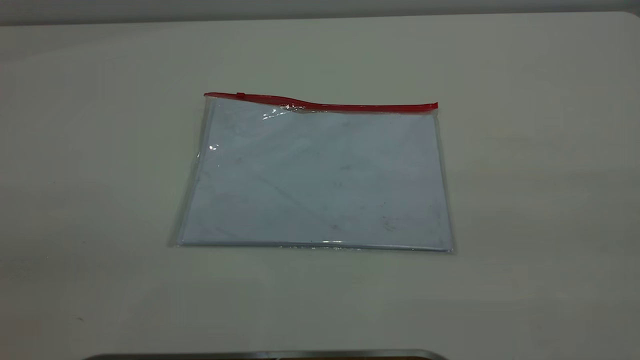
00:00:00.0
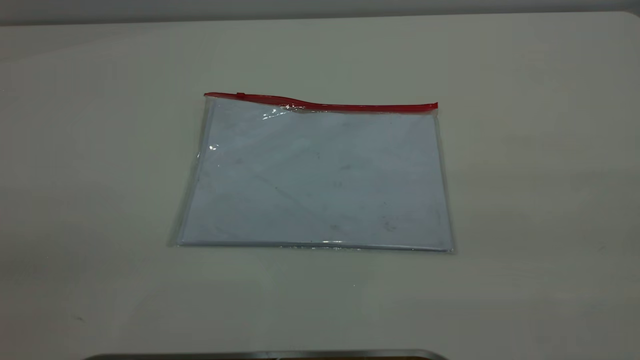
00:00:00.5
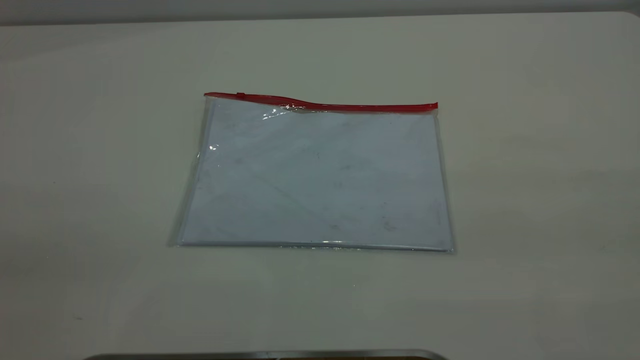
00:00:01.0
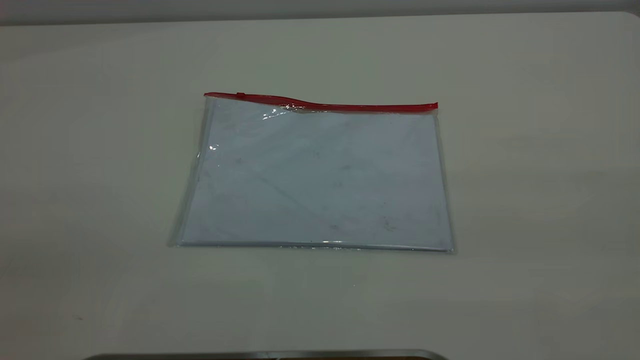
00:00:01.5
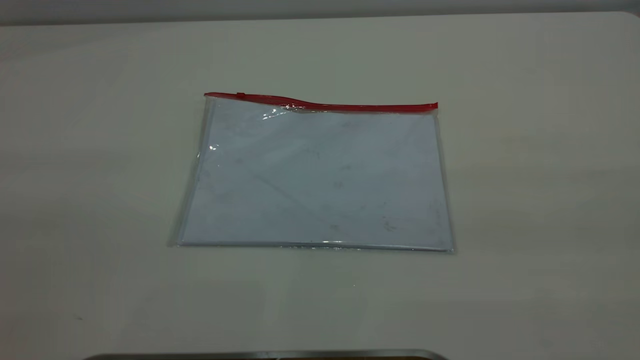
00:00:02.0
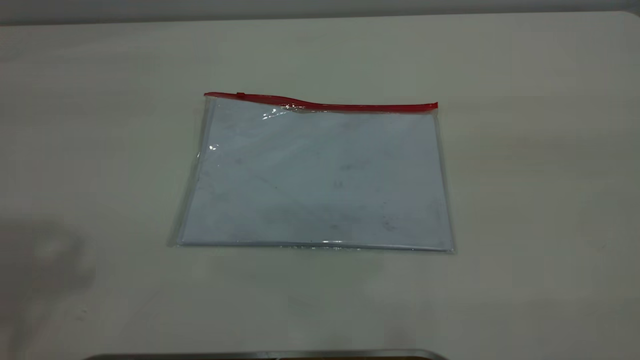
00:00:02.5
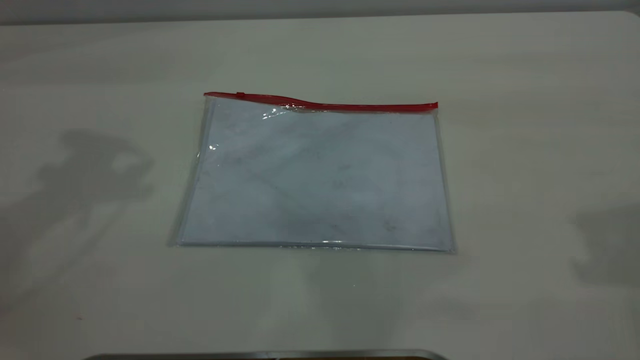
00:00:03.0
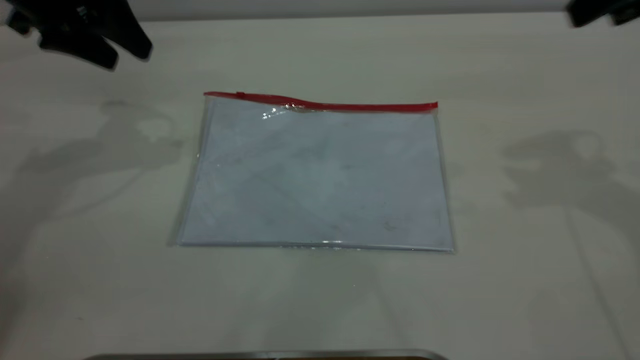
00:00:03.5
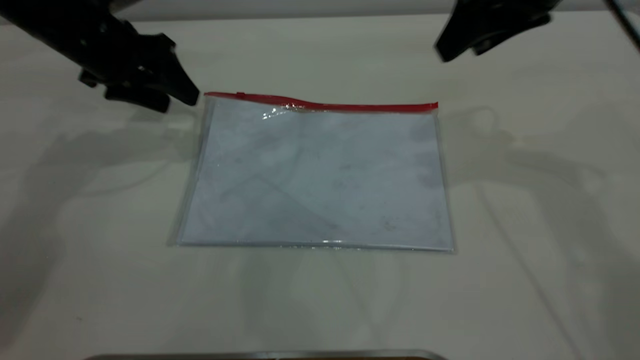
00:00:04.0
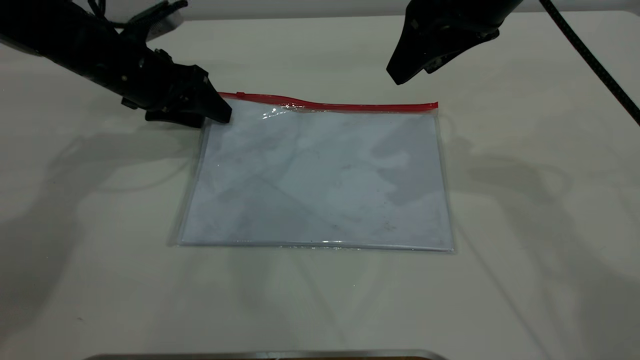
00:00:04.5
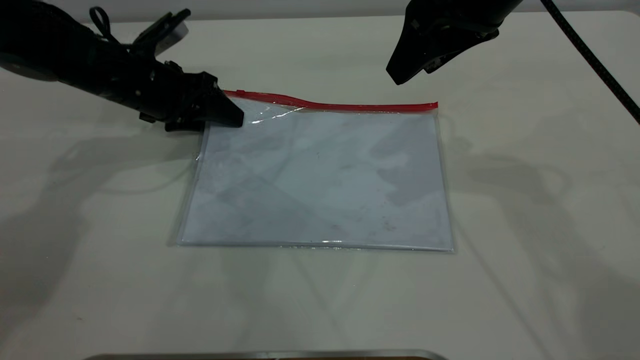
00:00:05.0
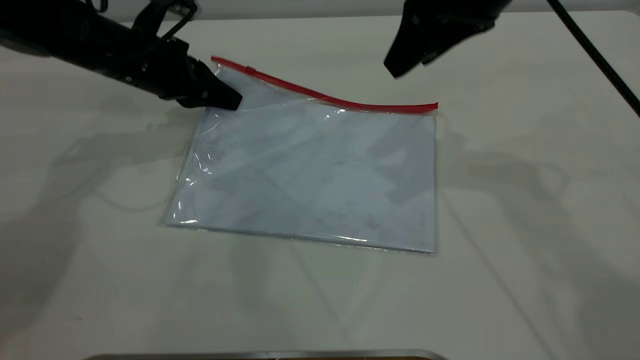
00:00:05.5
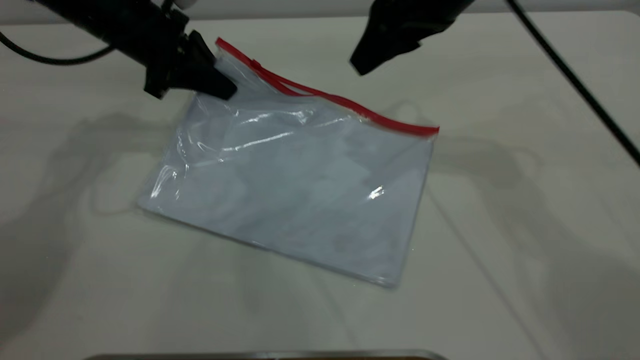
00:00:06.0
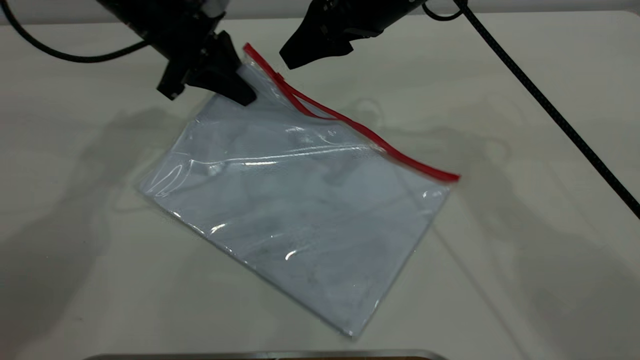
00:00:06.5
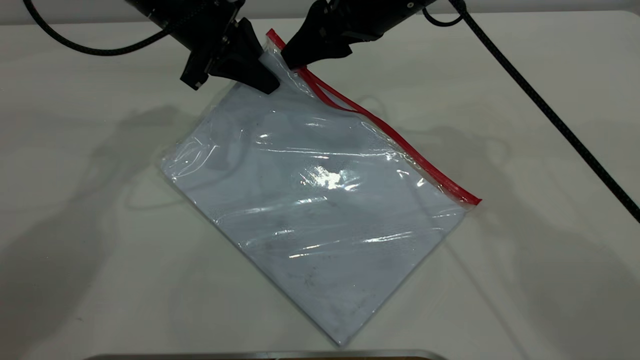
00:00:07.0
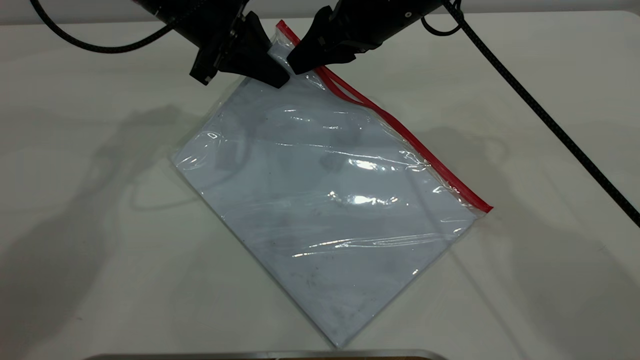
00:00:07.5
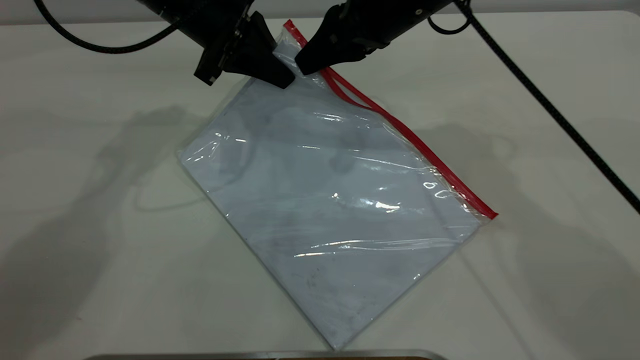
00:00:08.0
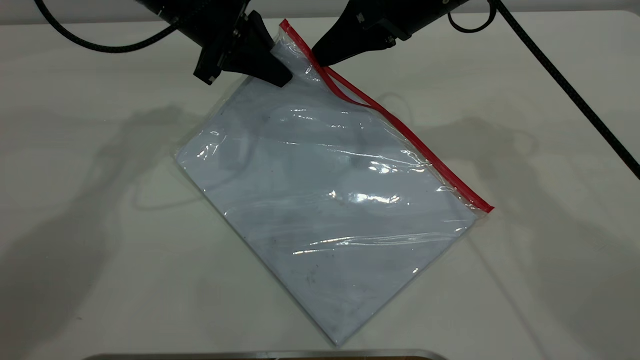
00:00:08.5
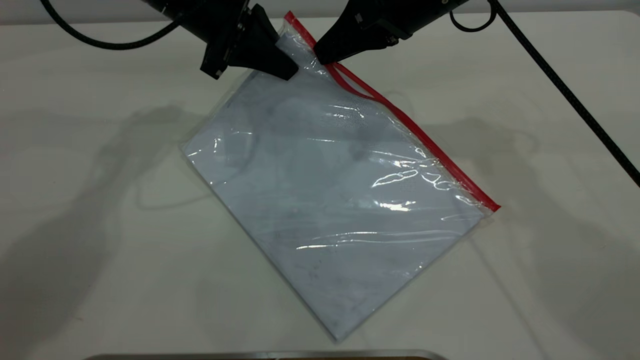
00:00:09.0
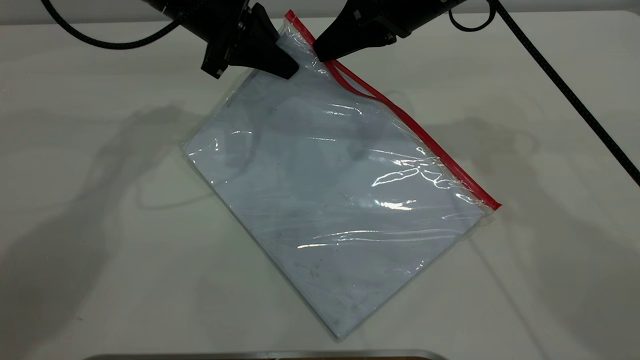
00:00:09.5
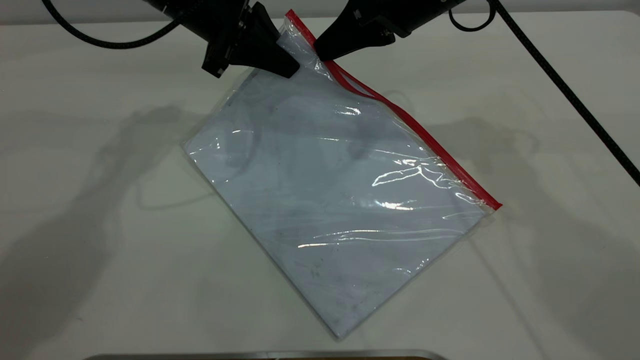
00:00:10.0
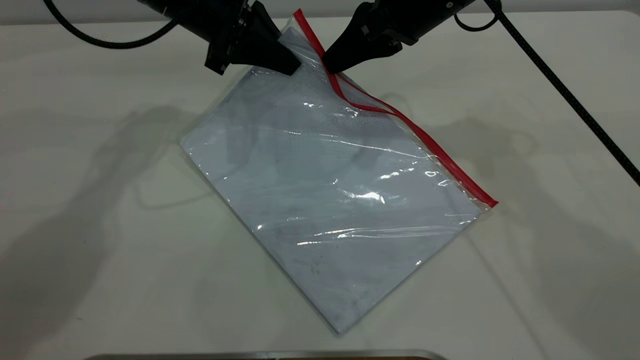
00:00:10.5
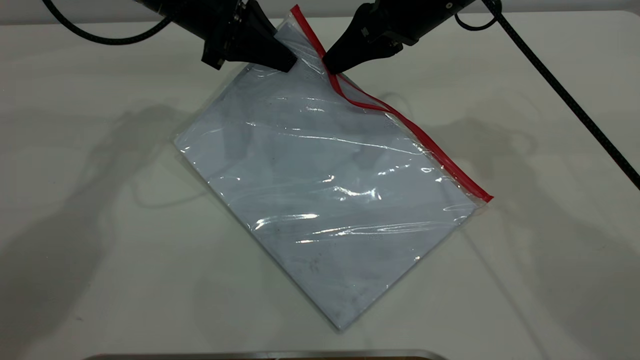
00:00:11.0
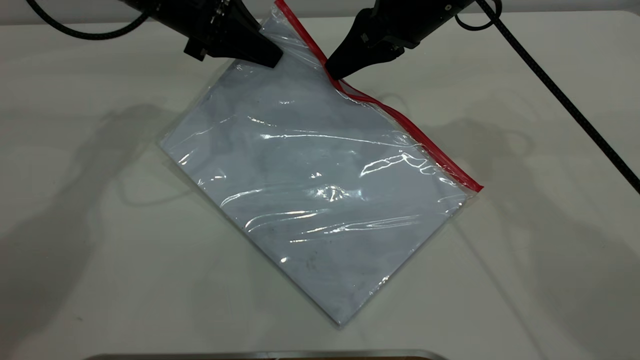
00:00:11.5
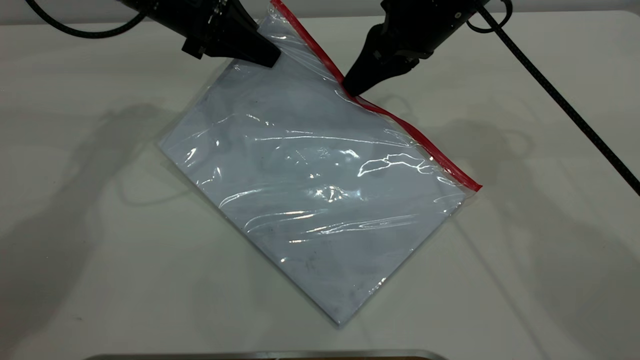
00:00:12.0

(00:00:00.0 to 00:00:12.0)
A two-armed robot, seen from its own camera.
Step, 00:00:00.0 - 00:00:05.0: Pick up the transparent plastic bag with the left gripper.
00:00:02.0 - 00:00:04.0: The left gripper goes about 50 cm forward and downward; the right gripper shifts roughly 40 cm forward.
00:00:04.0 - 00:00:06.0: The right gripper travels to the left by roughly 5 cm. Meanwhile the left gripper travels downward and back again, some 5 cm each way, and closes up.
00:00:06.0 - 00:00:08.0: The left gripper is displaced to the right by some 5 cm. Meanwhile the right gripper closes its fingers.
00:00:08.0 - 00:00:12.0: The grippers move only a little.

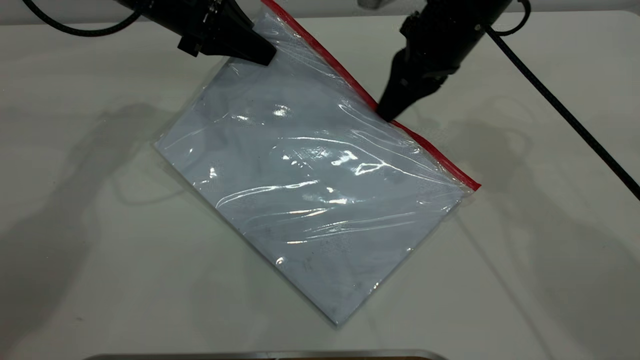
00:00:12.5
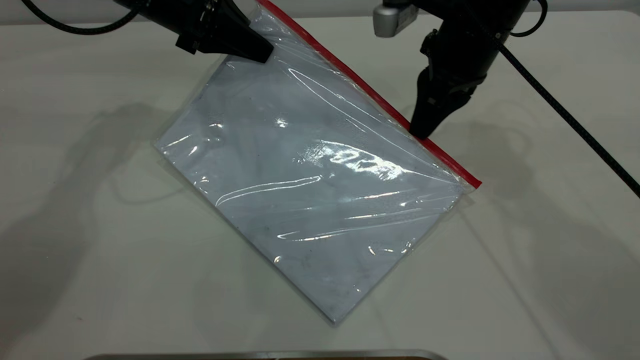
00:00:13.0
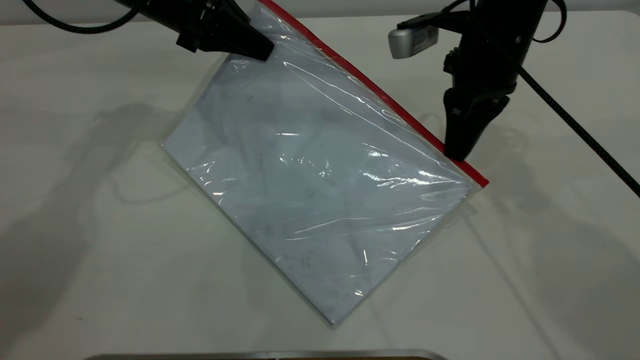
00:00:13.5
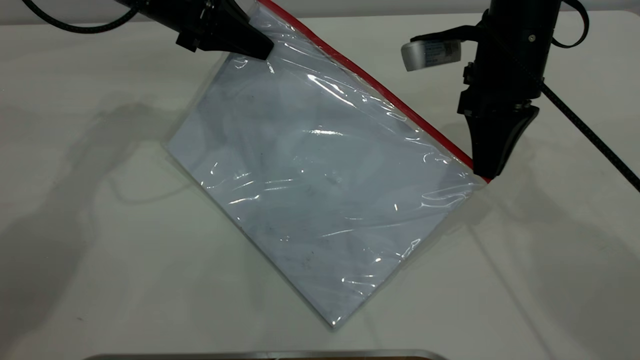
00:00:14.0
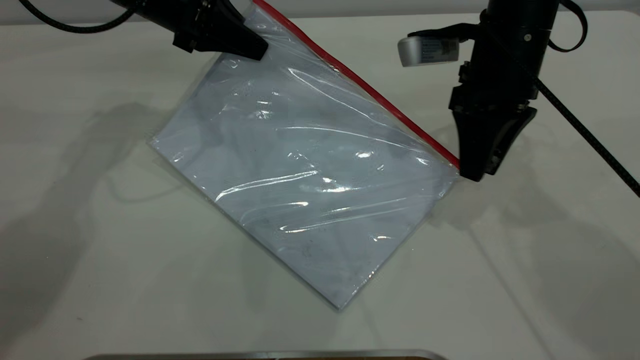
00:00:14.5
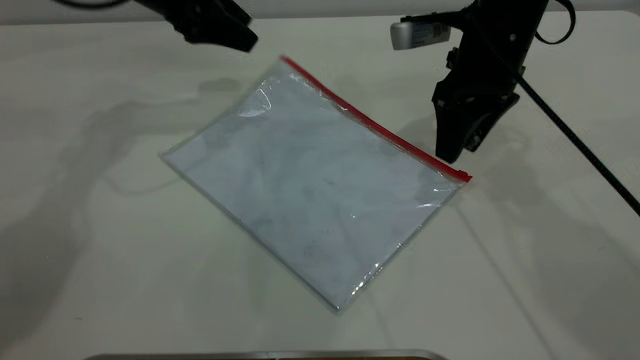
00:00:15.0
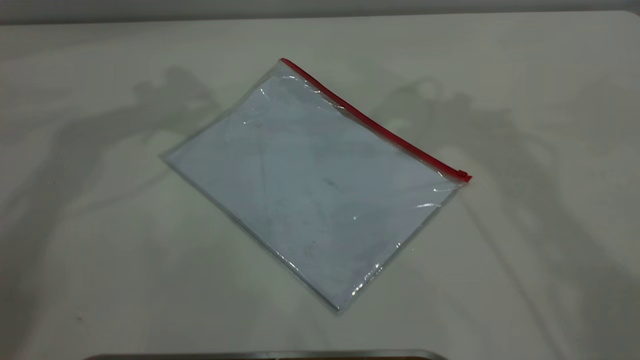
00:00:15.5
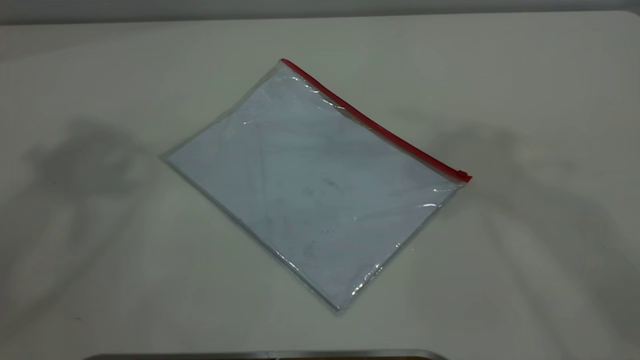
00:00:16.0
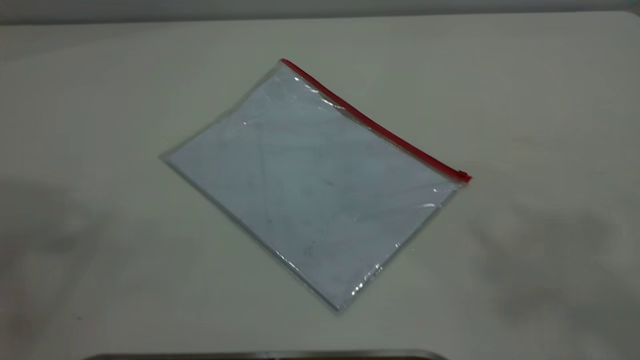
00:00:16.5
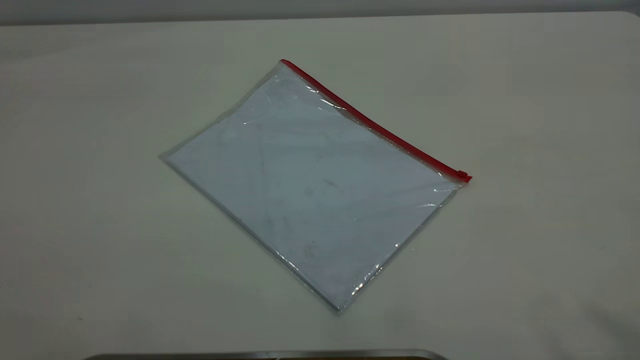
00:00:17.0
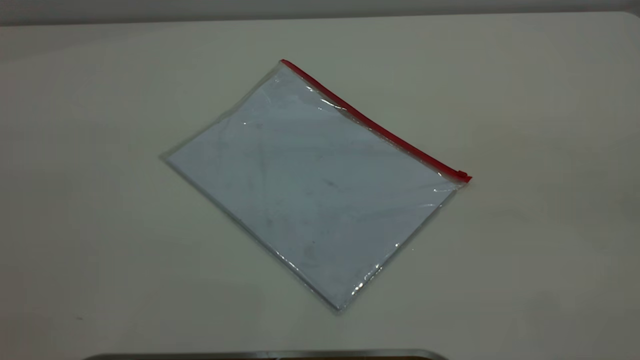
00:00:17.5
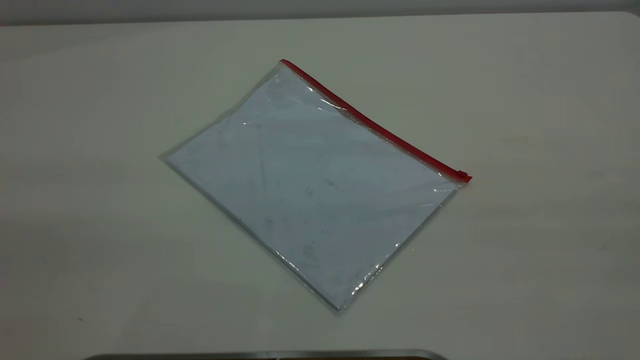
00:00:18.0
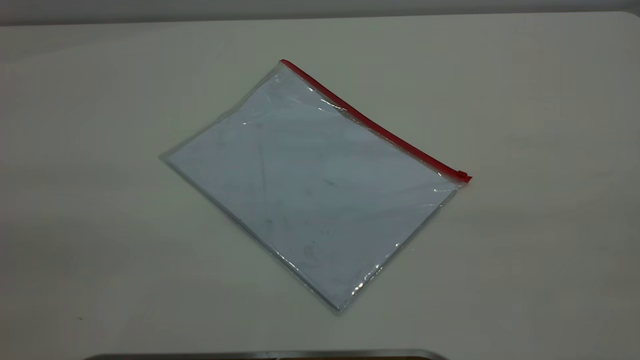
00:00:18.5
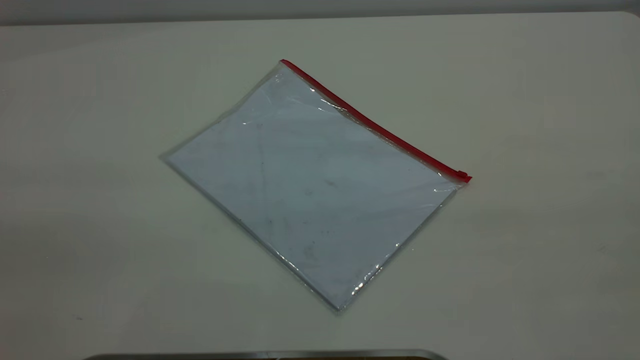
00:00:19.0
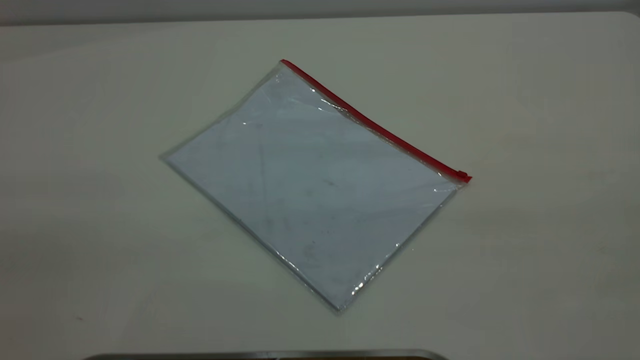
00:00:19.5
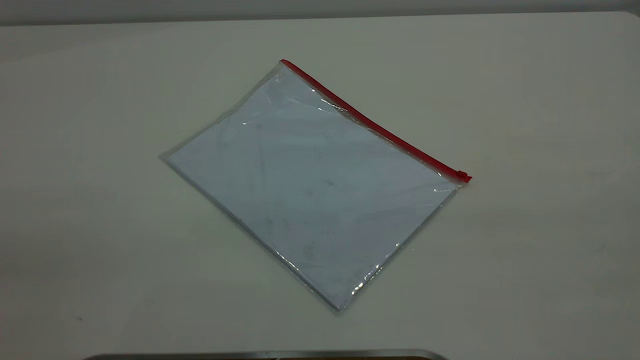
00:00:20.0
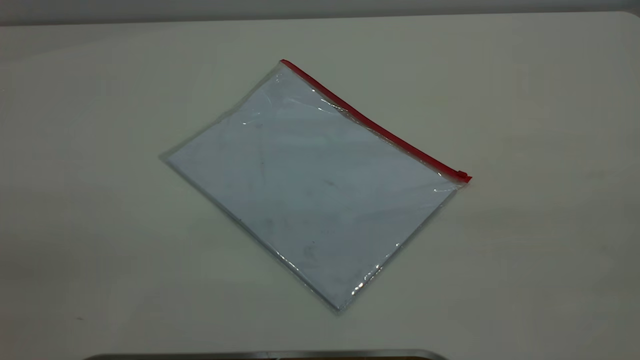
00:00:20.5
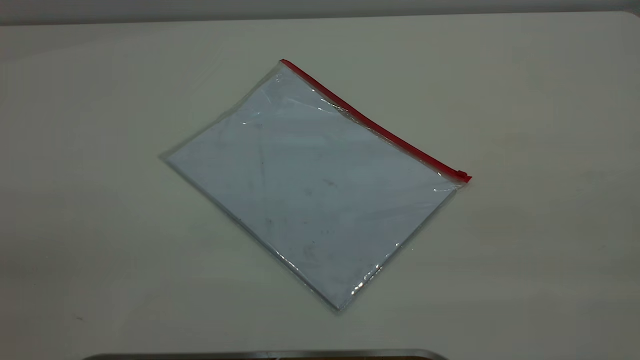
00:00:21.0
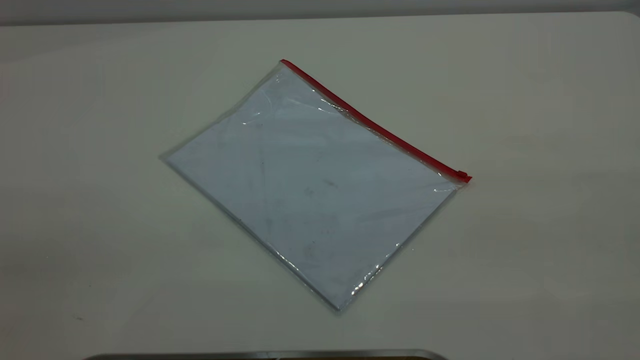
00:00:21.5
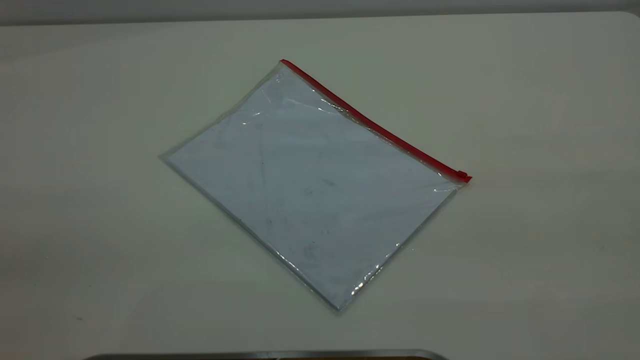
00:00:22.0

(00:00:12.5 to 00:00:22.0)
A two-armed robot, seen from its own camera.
Step, 00:00:14.5 - 00:00:15.0: Place the transparent plastic bag.
00:00:12.5 - 00:00:14.5: The right gripper opens its fingers.
00:00:14.5 - 00:00:16.5: Both grippers move upward and backward, approximately 50 cm. The left gripper opens its fingers.
